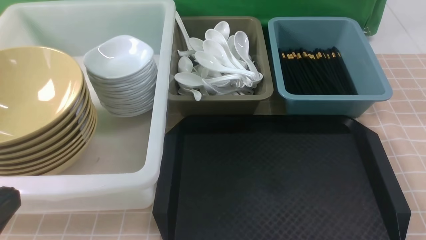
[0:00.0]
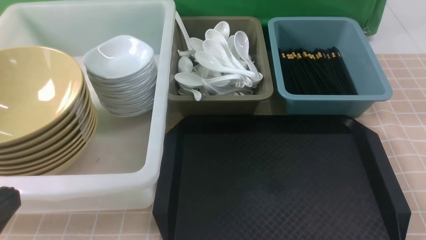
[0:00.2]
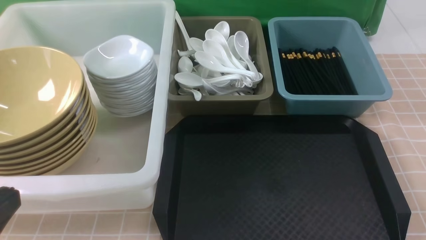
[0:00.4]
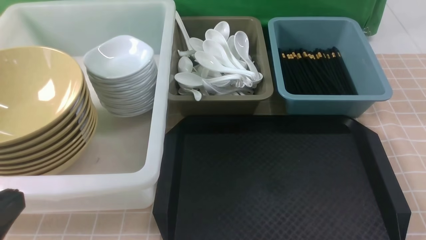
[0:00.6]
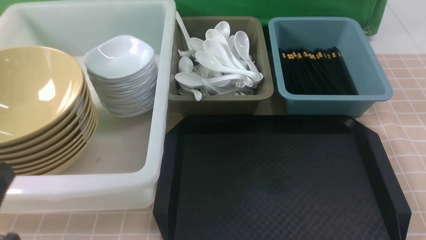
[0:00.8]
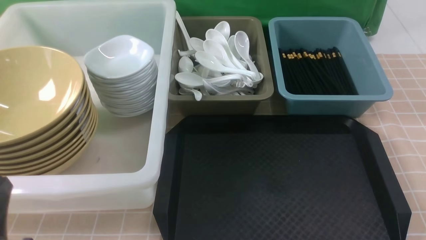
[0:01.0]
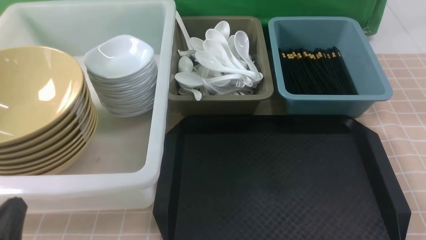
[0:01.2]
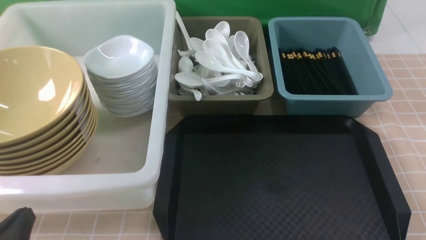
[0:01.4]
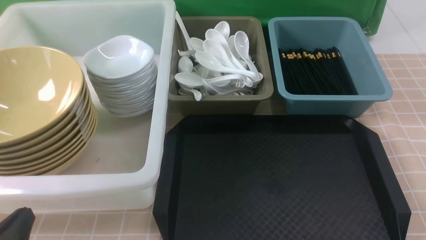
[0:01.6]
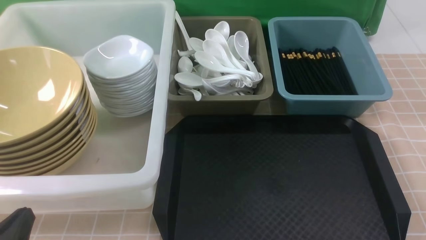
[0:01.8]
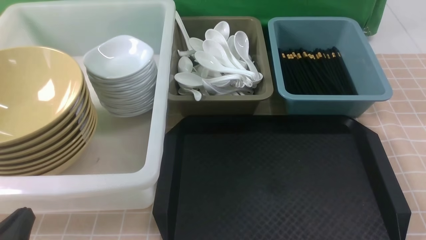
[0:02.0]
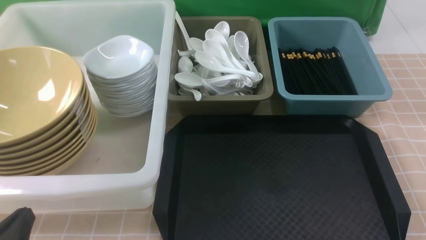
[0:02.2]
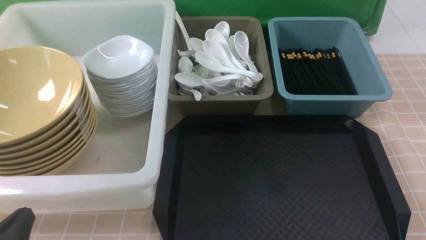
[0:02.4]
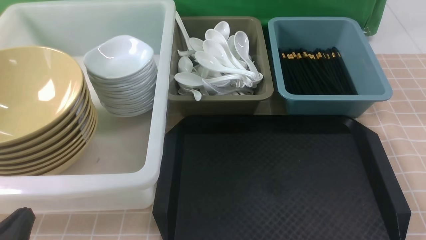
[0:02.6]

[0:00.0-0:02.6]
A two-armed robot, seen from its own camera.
Task of the whole recording: on brown table put chopsticks spoon bowls plates into blue grey white boxes.
0.0 to 1.2 s: The left gripper travels downward by some 10 cm.
1.2 to 2.6 s: Neither gripper changes place.

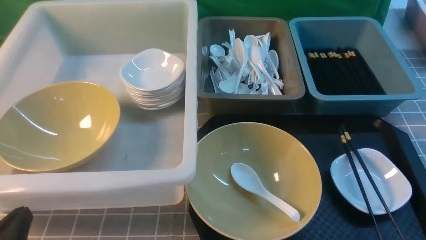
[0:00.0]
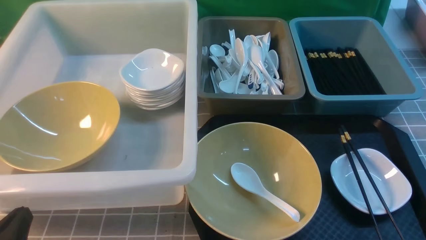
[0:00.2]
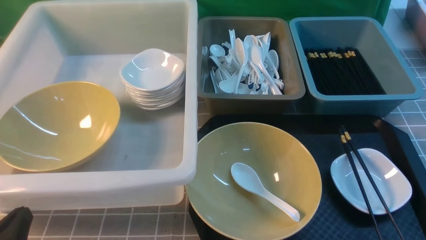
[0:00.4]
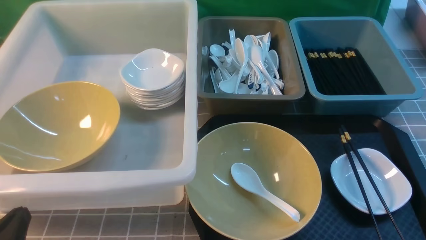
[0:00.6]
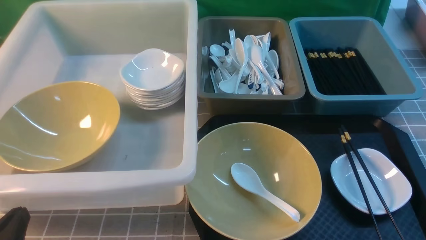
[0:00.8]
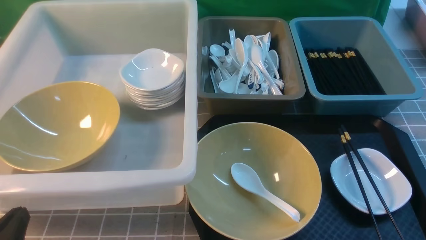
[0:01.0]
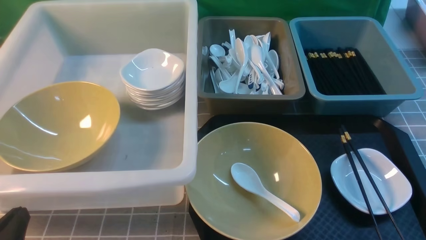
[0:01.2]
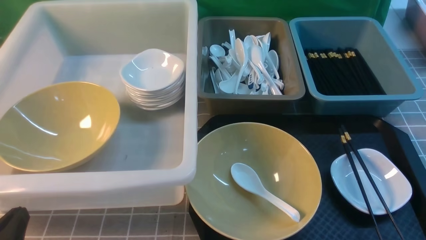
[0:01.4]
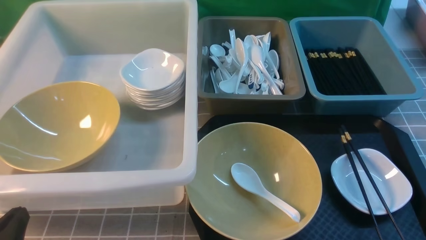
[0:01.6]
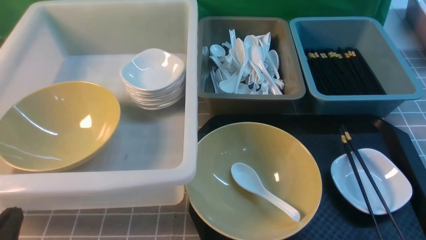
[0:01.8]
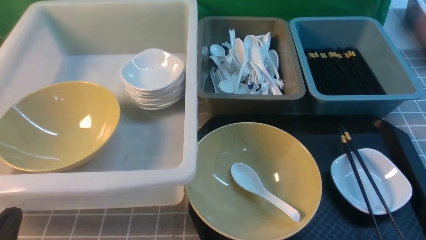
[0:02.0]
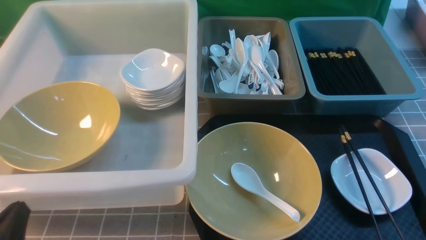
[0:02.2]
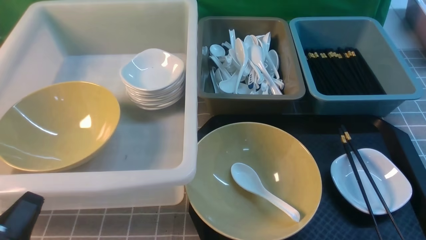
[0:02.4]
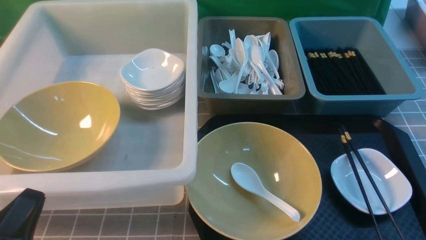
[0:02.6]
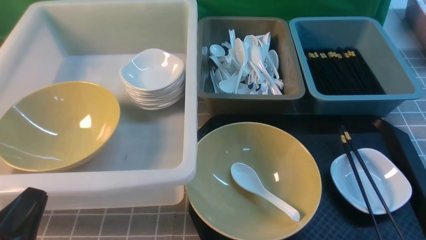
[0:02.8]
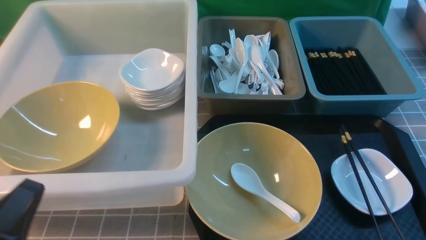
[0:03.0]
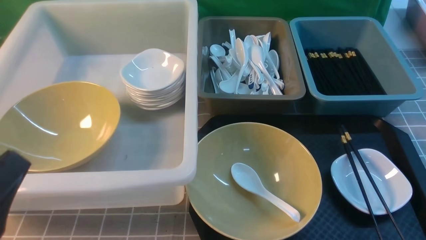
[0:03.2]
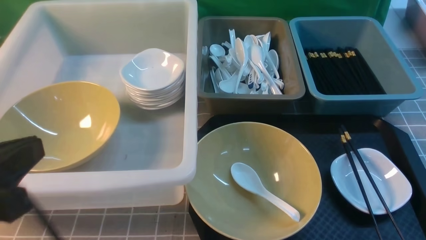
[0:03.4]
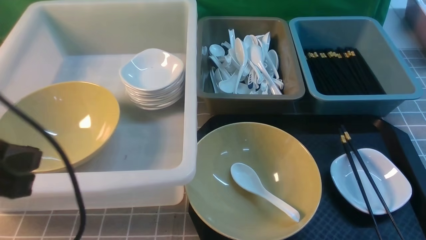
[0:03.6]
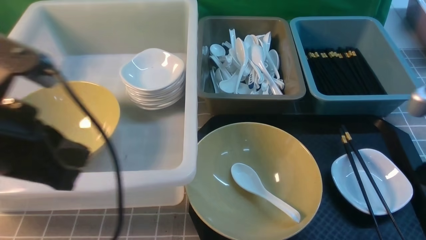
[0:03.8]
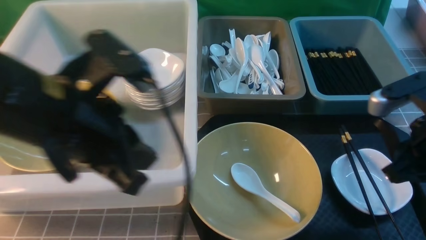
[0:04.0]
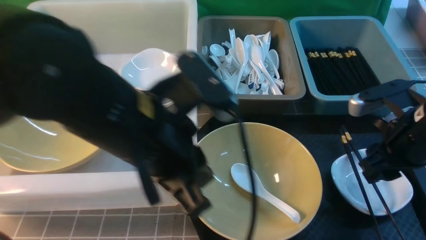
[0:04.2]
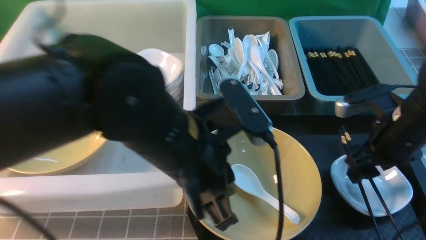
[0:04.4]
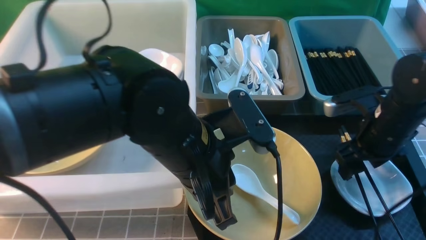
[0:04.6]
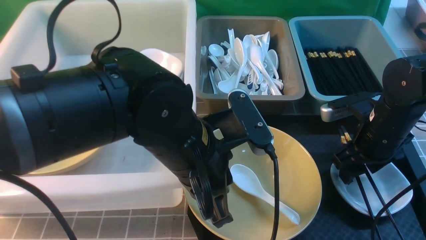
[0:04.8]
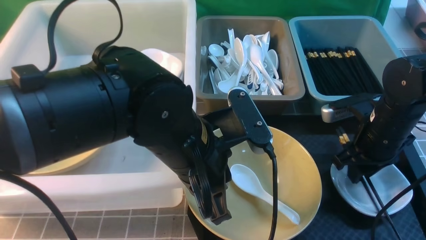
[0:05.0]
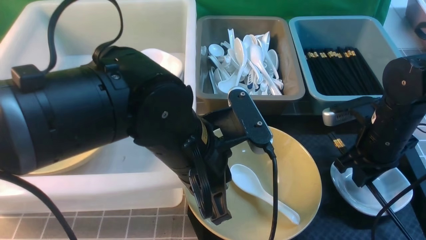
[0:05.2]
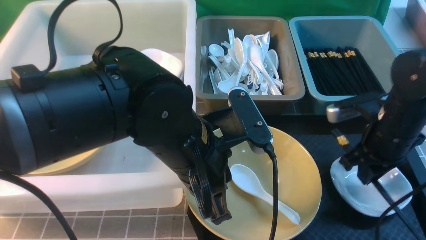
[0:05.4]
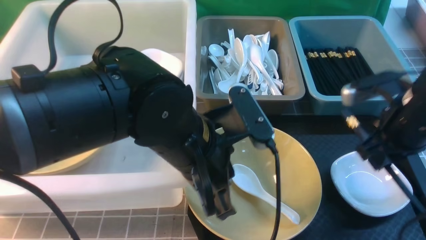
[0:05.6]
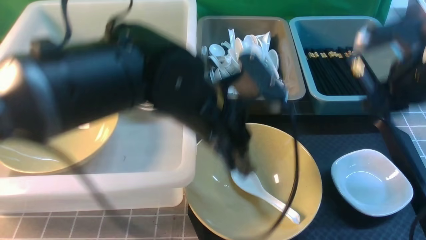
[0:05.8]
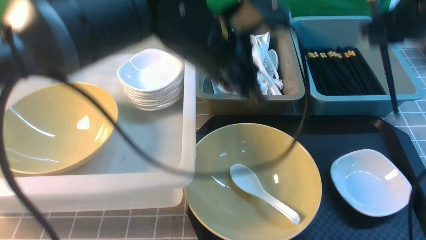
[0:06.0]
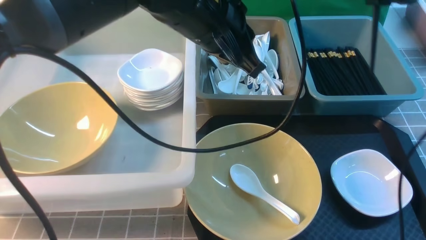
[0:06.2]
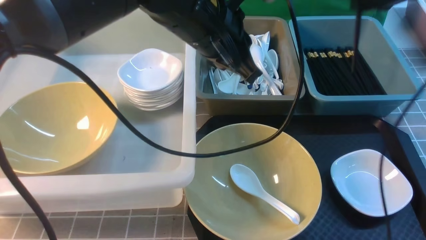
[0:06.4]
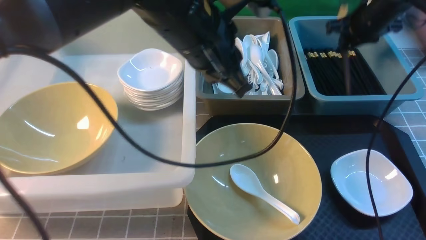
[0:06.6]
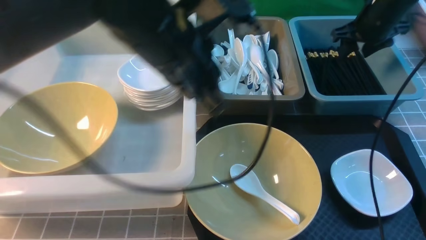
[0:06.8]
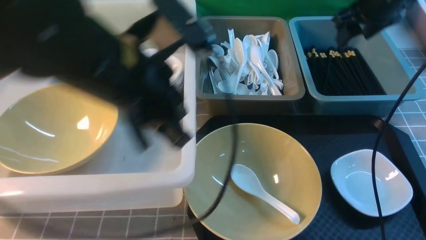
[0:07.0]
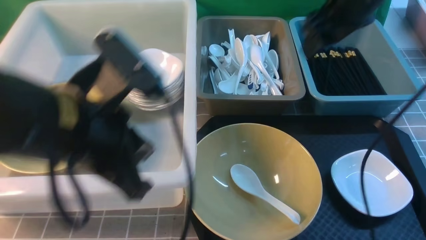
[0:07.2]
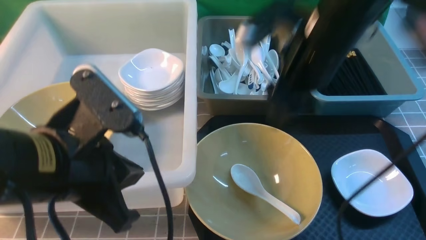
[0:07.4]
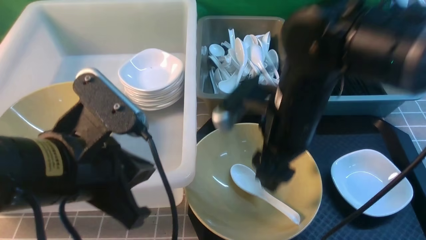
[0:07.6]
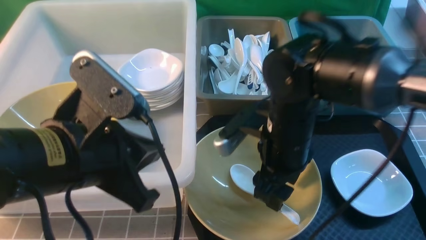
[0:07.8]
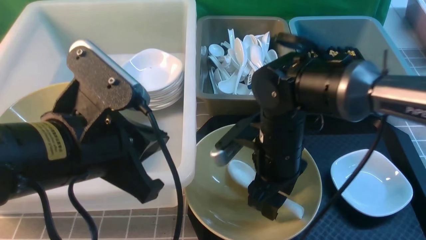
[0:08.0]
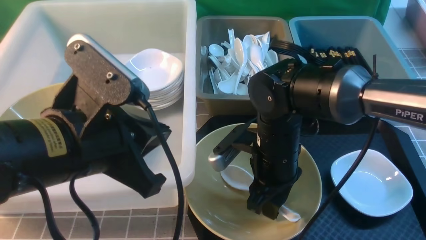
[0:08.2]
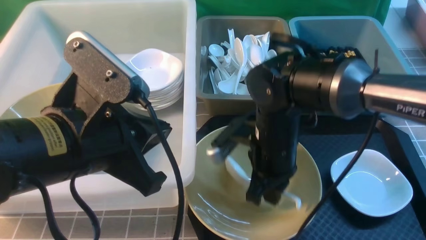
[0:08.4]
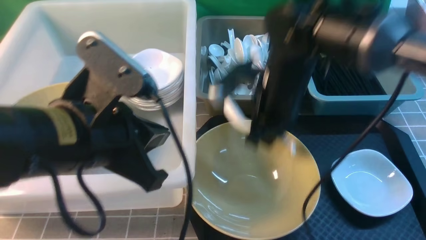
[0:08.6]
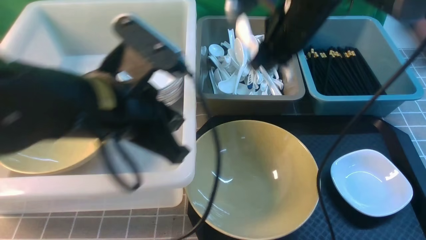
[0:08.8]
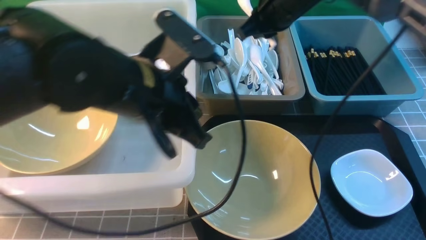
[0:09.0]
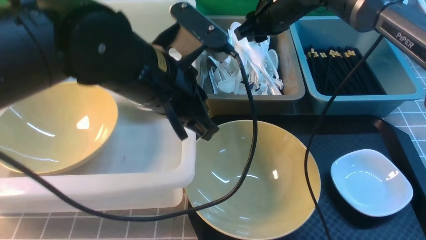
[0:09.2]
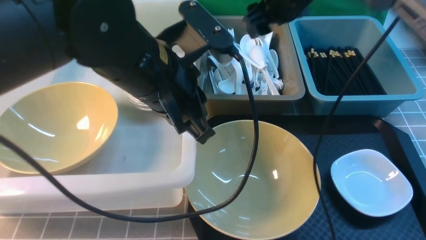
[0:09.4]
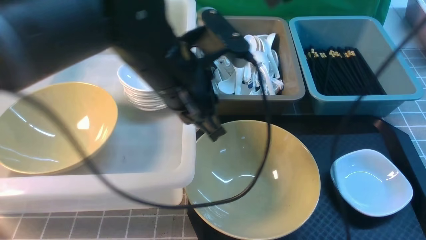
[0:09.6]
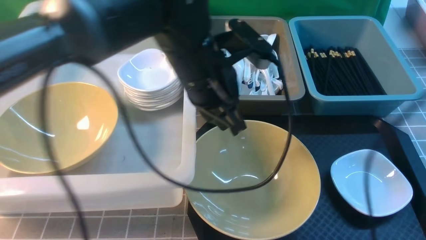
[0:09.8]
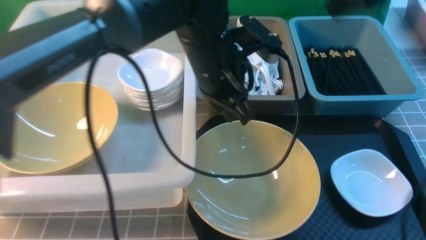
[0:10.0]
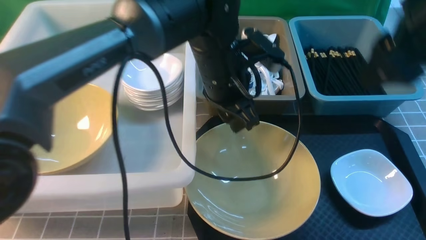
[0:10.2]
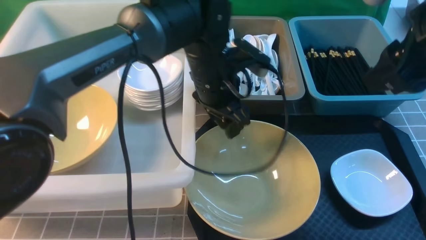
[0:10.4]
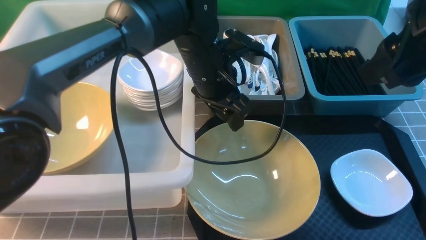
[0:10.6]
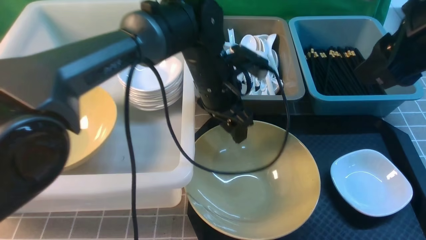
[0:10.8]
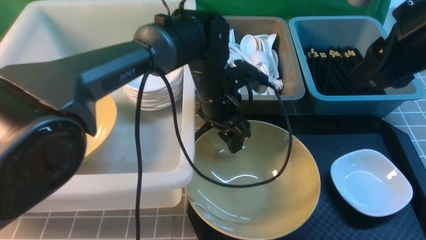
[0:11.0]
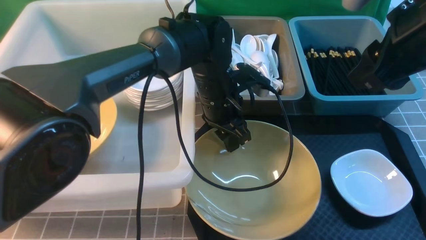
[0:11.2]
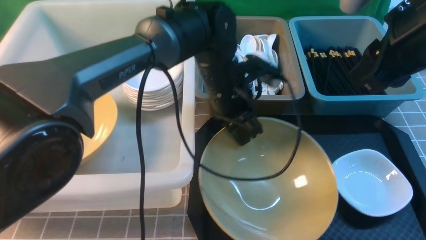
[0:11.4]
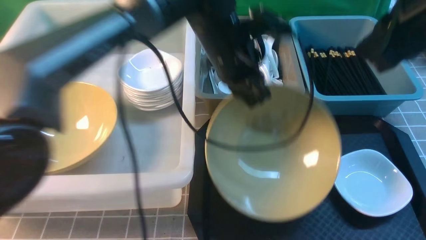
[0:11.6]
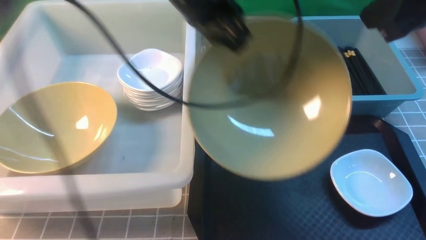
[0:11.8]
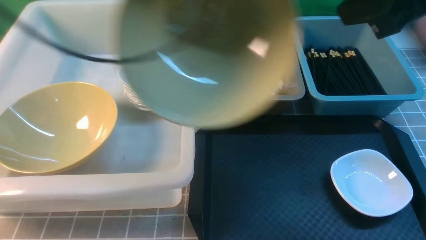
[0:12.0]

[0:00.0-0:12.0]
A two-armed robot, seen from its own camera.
Task of the whole recording: on grey table put chopsticks spoon bowls plates into blue grey white boxes.
Step, 0.0 to 5.6 s: use the right arm to grab the chopsticks.
Step, 5.8 to 6.8 s: use the right arm to put the chopsticks into the small storage box on the right.
Step, 7.0 to 8.6 s: use the right arm to grab the soup spoon in the middle.
Step, 8.8 to 9.2 s: use the right arm to put the soup spoon into the small storage box in the middle.
Step, 9.6 to 11.8 s: use the left arm to grab the yellow noodle bowl on the left.
1.6 to 3.0 s: The left gripper goes approximately 10 cm upward.
3.0 to 4.4 s: The right gripper travels forward by roughly 25 cm, and opens its fingers, while the left gripper shifts approximately 25 cm to the right and forward.
4.4 to 6.0 s: The left gripper heads forward, covering some 10 cm, while the right gripper travels upward and forward by roughly 15 cm, and closes.
6.0 to 7.6 s: The right gripper shifts approximately 25 cm to the left, downward and backward, and opens its fingers, while the left gripper travels backward and to the left by approximately 20 cm.
7.6 to 9.0 s: The right gripper travels forward by approximately 15 cm, and closes its fingers. Meanwhile the left gripper heads forward and to the right, covering roughly 10 cm.
9.0 to 10.4 s: The left gripper is displaced forward, to the right and downward by some 15 cm, and opens up, while the right gripper moves backward, to the right and upward, about 25 cm, and opens its fingers.
10.4 to 12.0 s: The left gripper goes roughly 25 cm upward and to the left, and closes up; the right gripper ends up about 5 cm from where it was, and closes up.

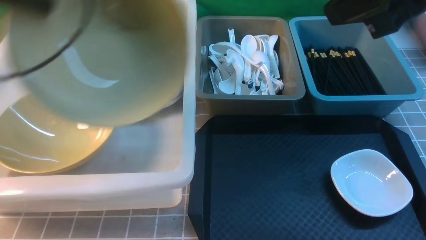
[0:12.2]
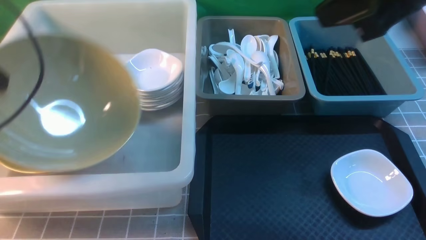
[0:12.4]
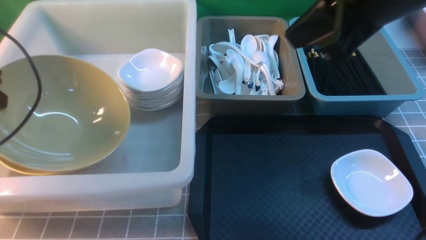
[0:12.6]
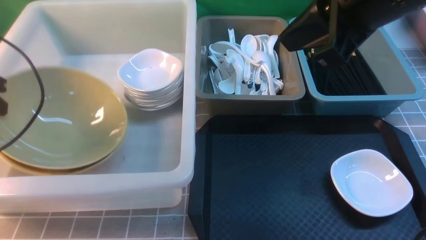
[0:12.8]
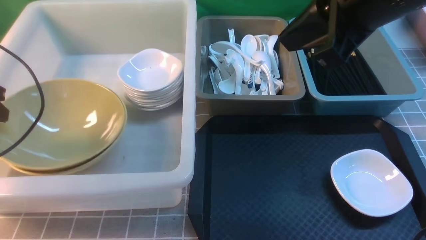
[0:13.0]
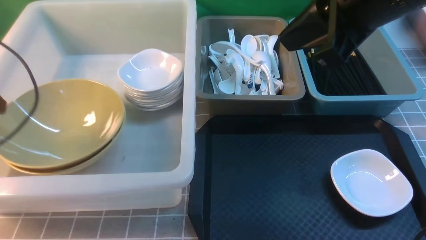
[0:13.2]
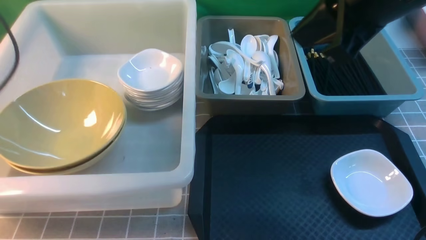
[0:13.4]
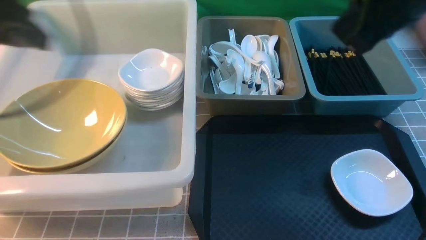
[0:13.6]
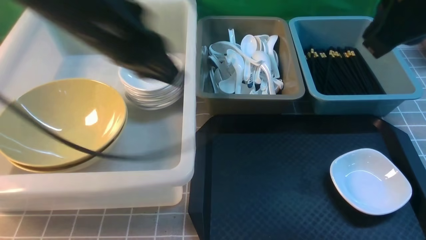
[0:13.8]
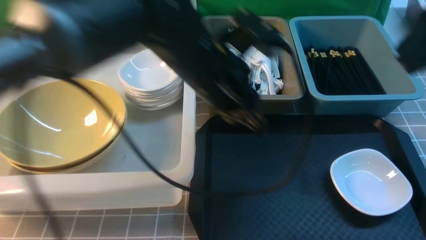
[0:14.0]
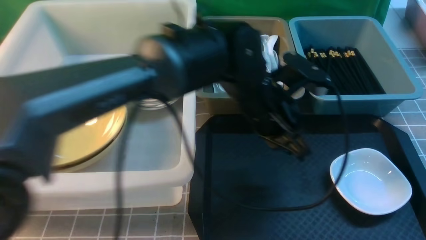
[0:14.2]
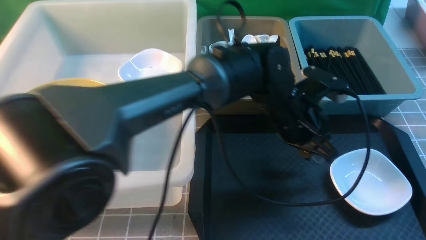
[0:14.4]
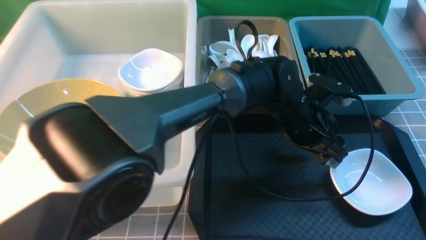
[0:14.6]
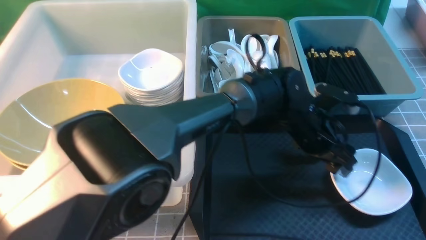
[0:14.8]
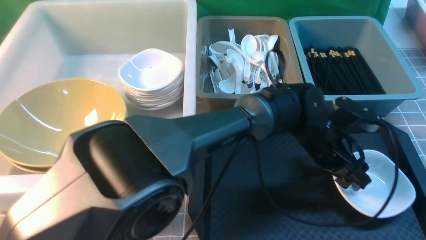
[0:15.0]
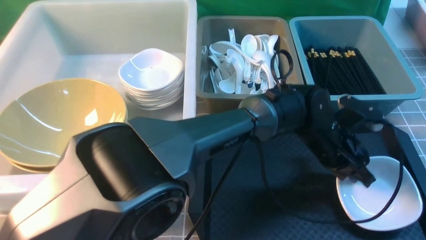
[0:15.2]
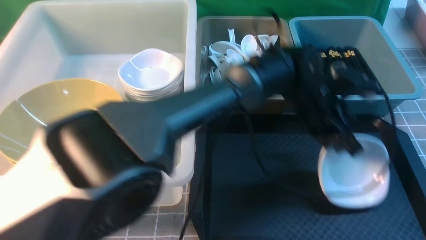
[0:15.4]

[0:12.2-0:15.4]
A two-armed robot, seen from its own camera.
Task of the whole recording: on grey table put chopsticks spoon bowls plates into blue grey white boxes.
Step, 12.2 to 13.0 s: use the left arm to put the noodle bowl into the large storage box on the left.
Step, 13.4 to 15.4 s: use the left arm to grab the plate.
12.2 to 13.8 s: The left gripper moves to the right, approximately 20 cm, and opens, then closes once more.
13.8 to 15.4 s: The right gripper moves backward and to the right, approximately 15 cm; the left gripper heads to the right and downward, covering some 25 cm, and opens, then closes once more.
